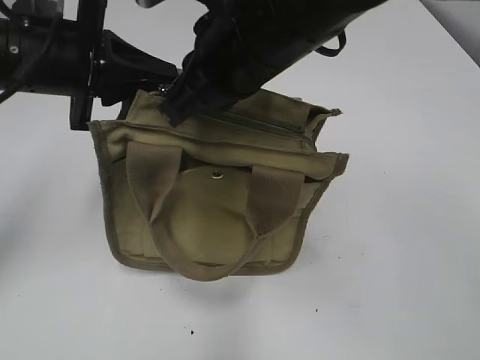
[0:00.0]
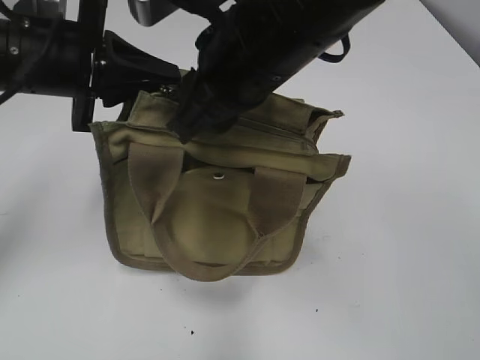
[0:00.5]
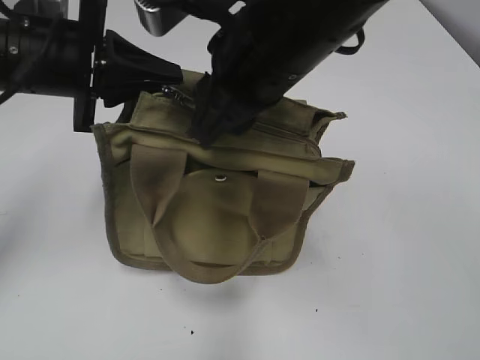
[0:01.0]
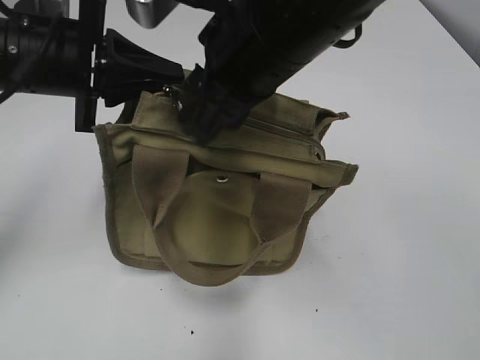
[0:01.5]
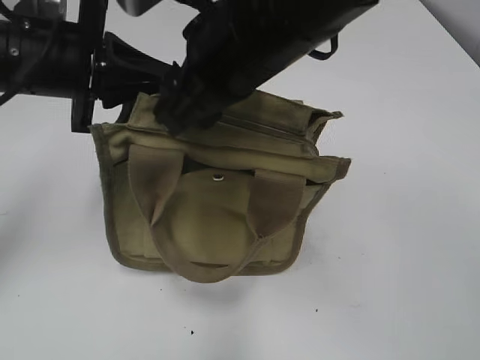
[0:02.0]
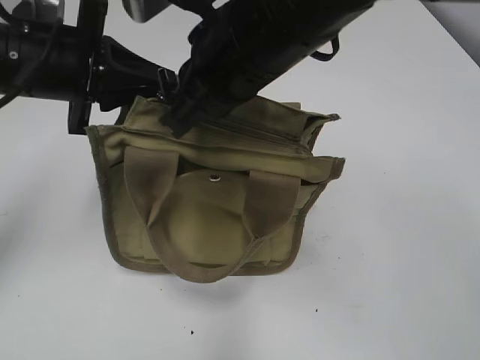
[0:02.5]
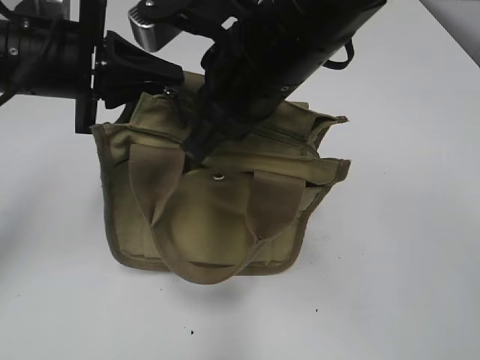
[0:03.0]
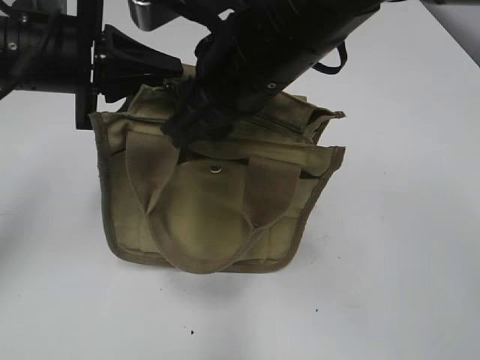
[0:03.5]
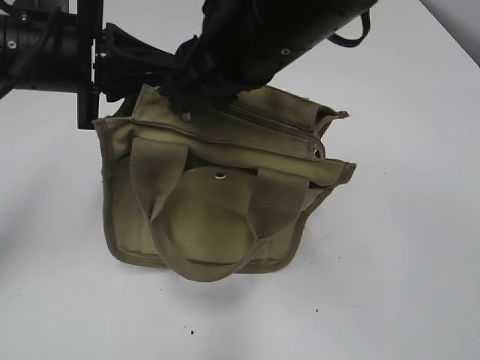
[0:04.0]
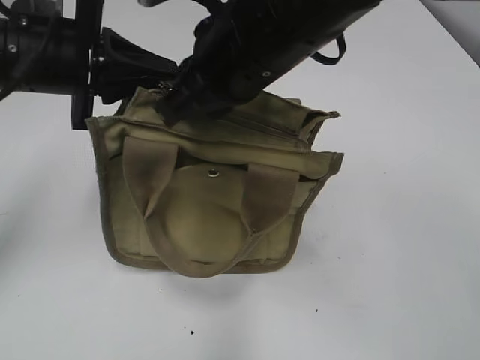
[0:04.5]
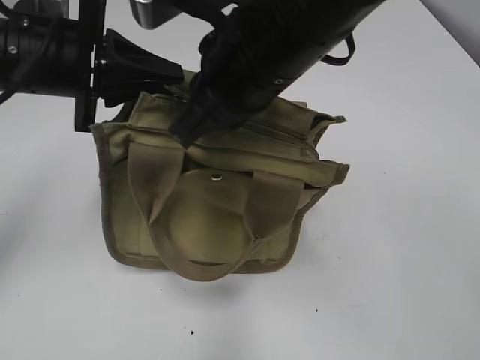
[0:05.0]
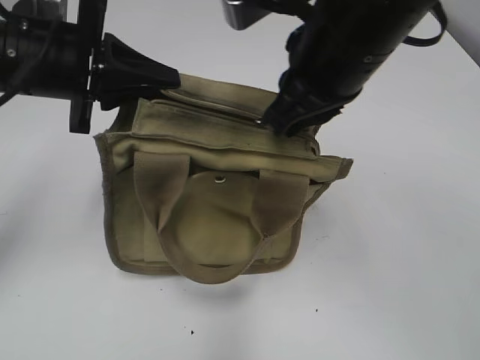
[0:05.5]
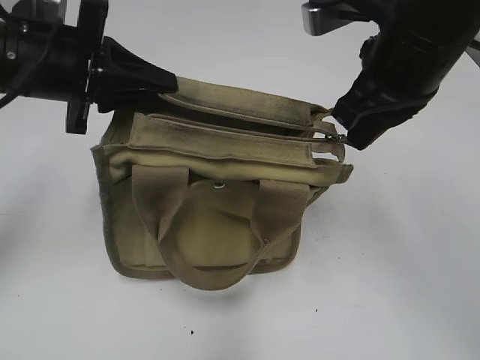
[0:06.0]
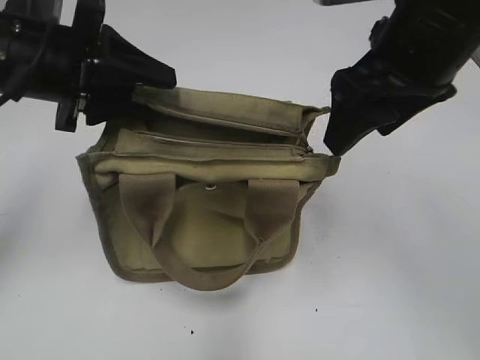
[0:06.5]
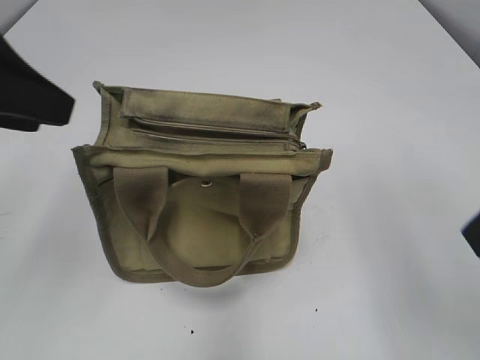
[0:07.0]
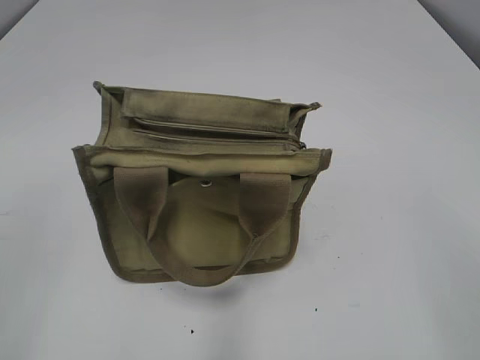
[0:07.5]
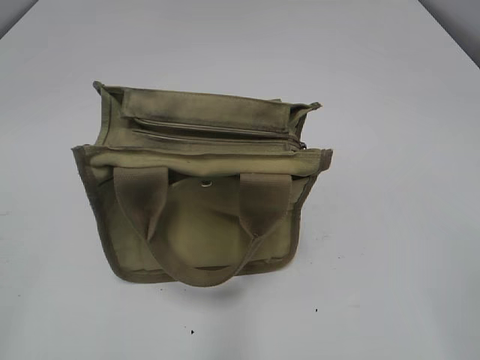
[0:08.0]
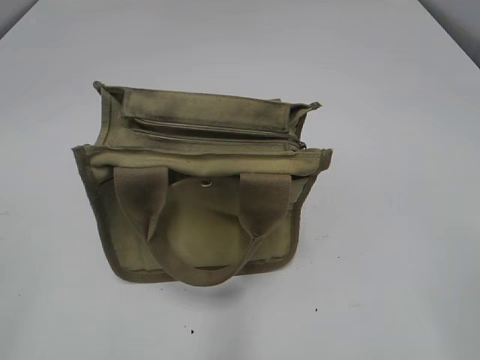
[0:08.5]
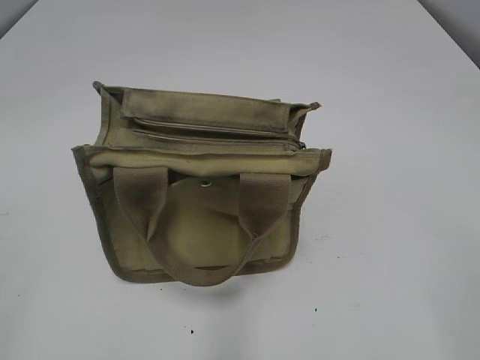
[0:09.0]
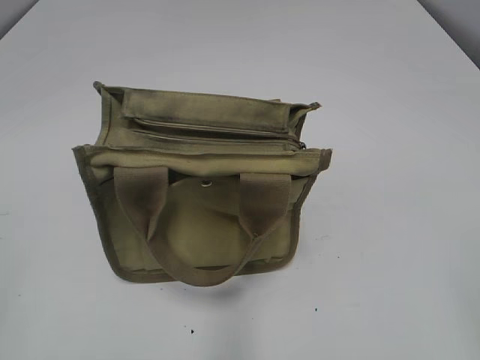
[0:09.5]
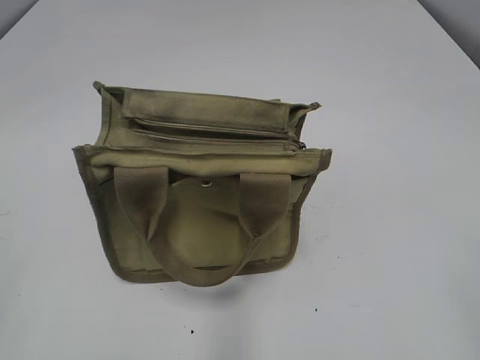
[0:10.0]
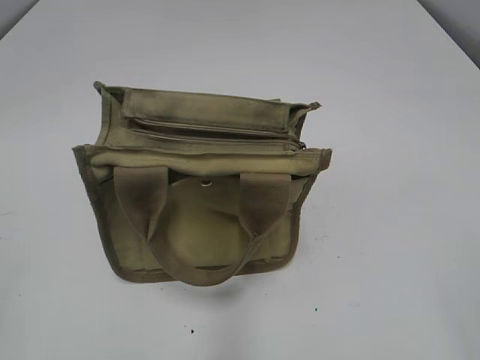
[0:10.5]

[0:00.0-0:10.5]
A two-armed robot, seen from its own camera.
Step, 0:00.0 to 0:06.0: Pull open the zipper with your right hand.
0:00.0 to 0:02.0: The right gripper opens up.
0:02.0 to 0:04.0: The right gripper closes and opens again.
0:04.0 to 0:06.5: The left gripper opens up, while the right gripper heads to the right, covering roughly 10 cm, and opens its fingers.
0:06.5 to 0:08.5: The left gripper goes about 30 cm backward and to the left; the right gripper is displaced backward and to the right by about 30 cm.

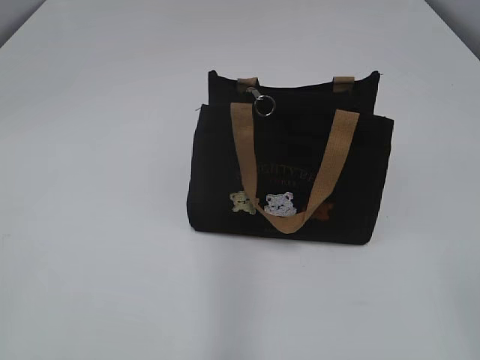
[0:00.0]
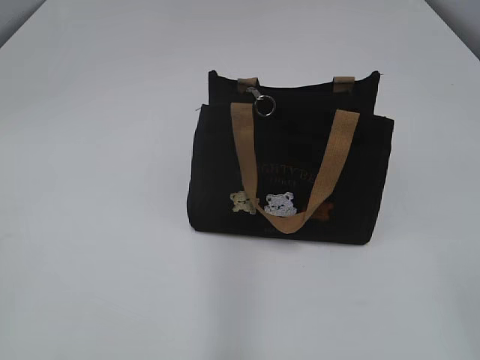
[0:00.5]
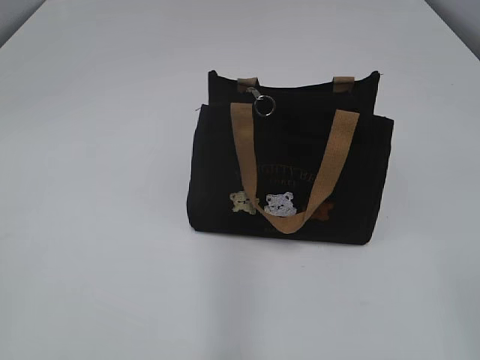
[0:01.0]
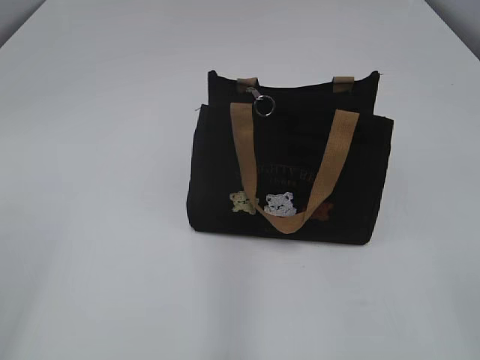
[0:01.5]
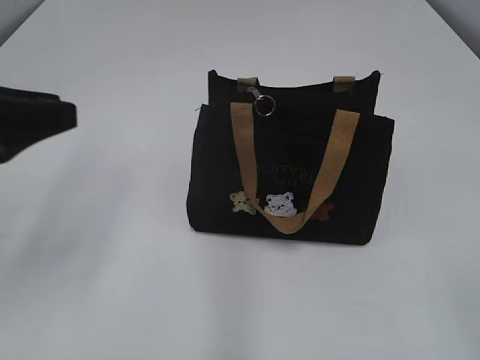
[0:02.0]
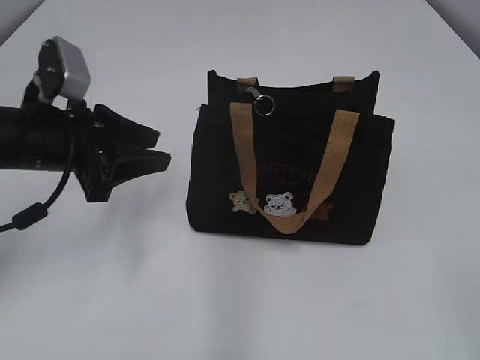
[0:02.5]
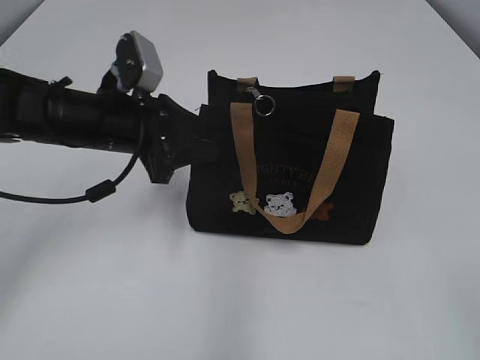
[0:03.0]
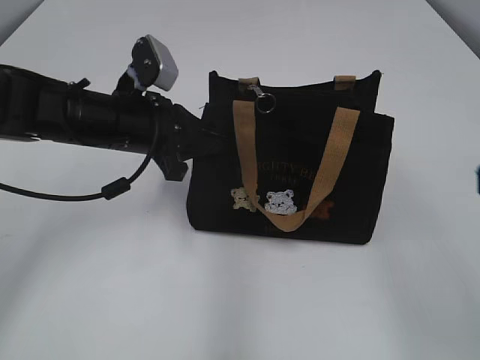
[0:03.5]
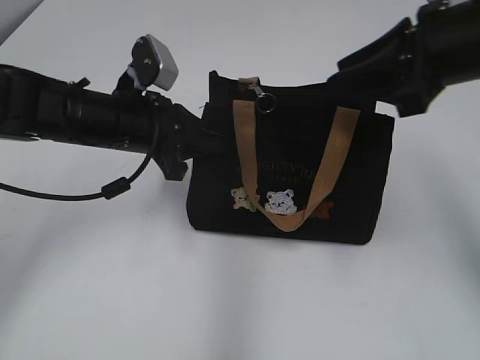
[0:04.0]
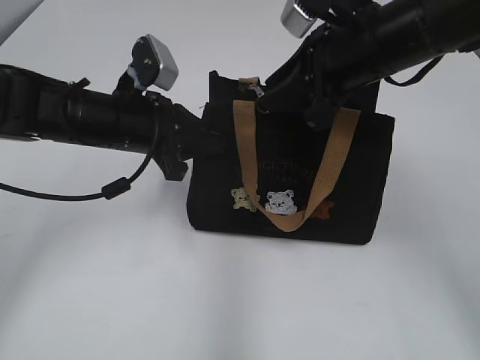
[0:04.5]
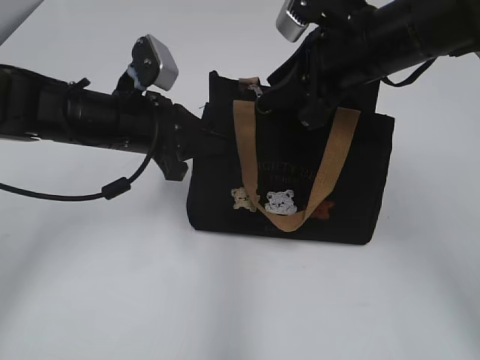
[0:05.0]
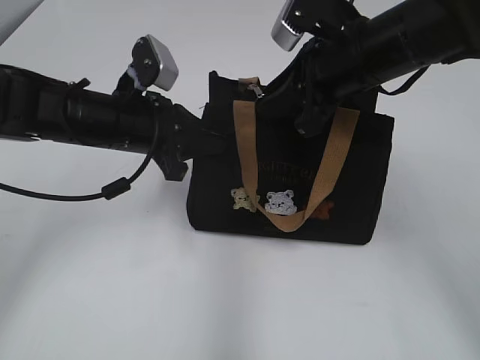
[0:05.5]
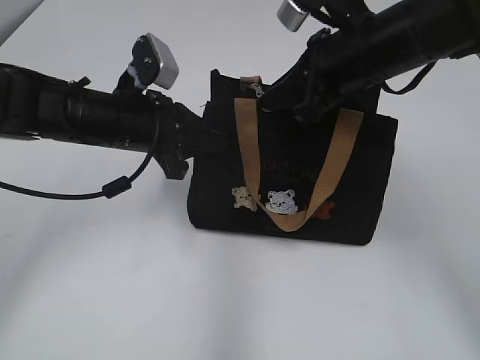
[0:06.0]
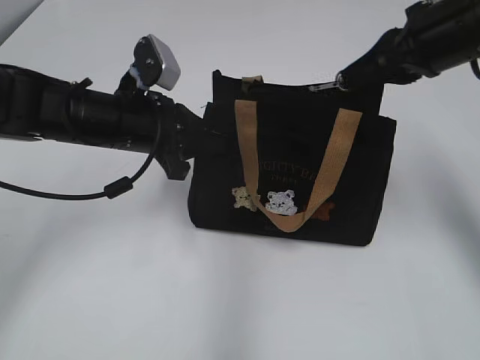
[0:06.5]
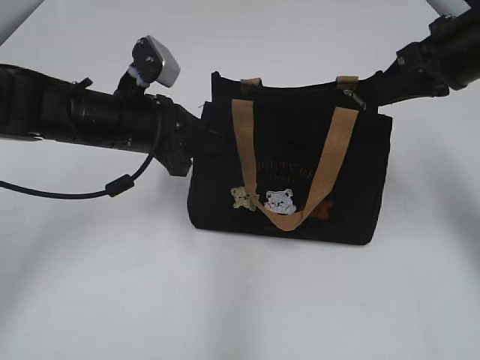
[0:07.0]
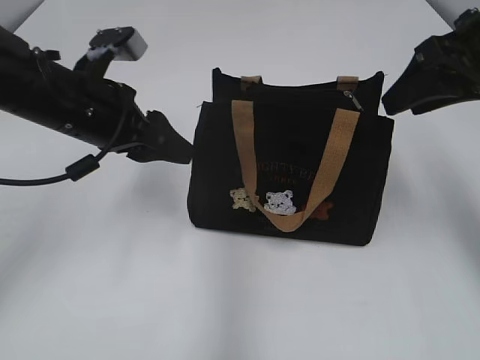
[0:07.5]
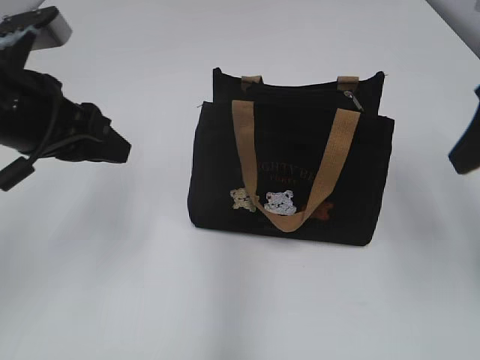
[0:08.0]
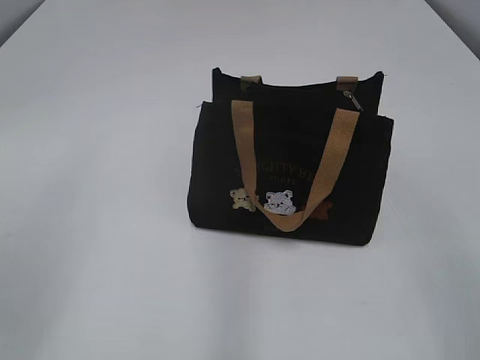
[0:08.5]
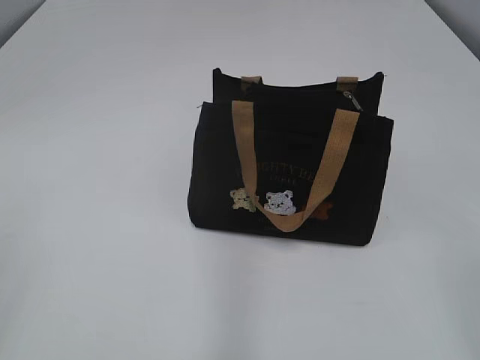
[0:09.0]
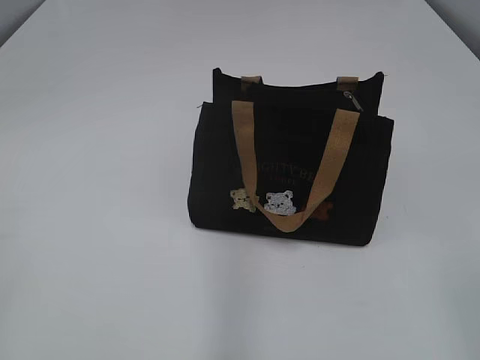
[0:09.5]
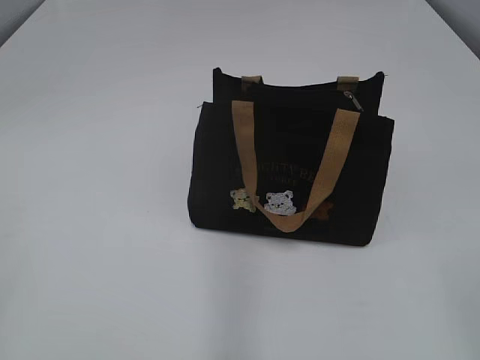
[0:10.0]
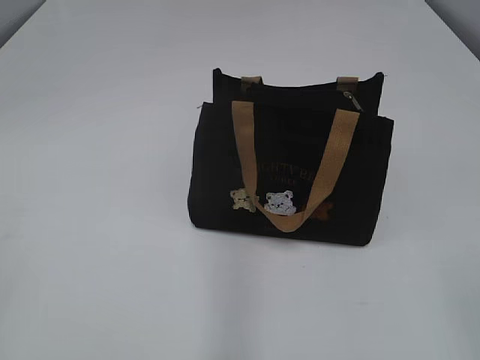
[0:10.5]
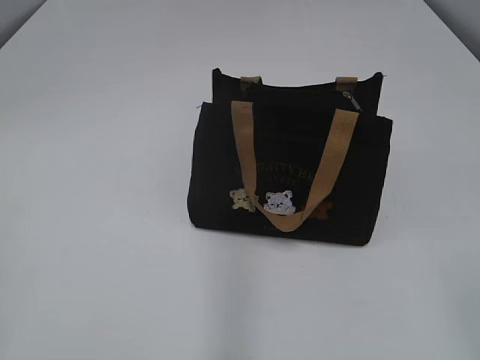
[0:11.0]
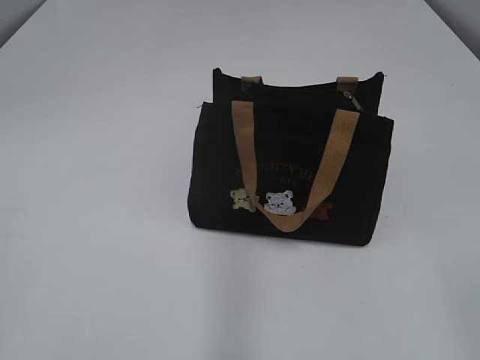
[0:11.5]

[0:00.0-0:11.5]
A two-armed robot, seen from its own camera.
Step, 0:00.0 to 0:07.0: Pull open the zipper with your right hand.
0:02.0 to 0:04.0: The left gripper moves forward, to the right and downward, approximately 20 cm, and closes its fingers. Meanwhile the right gripper heads forward, covering some 30 cm.
0:04.0 to 0:06.0: The right gripper travels to the left and forward by approximately 10 cm, and closes up.
0:06.0 to 0:07.5: The right gripper heads to the right, covering approximately 10 cm, and opens up, while the left gripper ends up about 5 cm from where it was, and opens up.
0:07.5 to 0:09.5: The left gripper moves backward and to the left, about 35 cm; the right gripper goes some 30 cm backward.

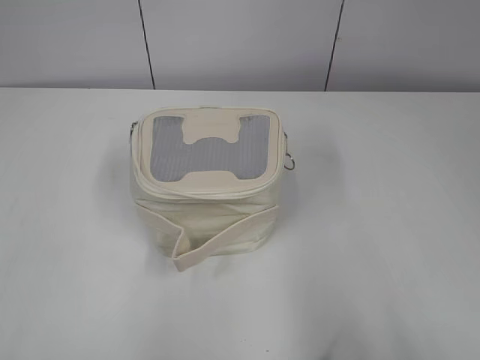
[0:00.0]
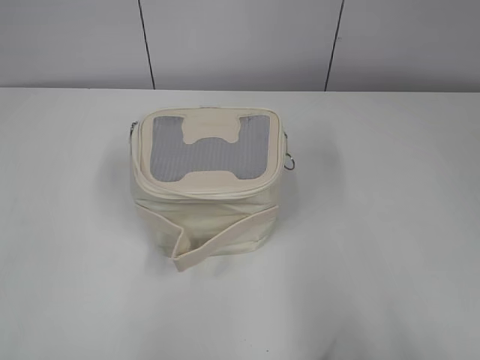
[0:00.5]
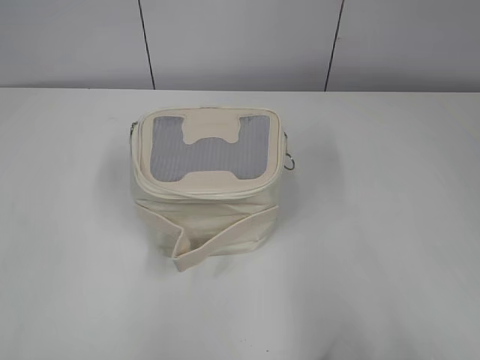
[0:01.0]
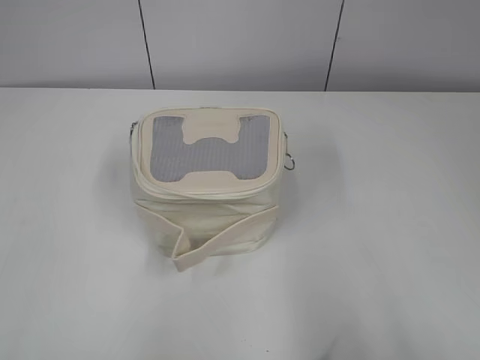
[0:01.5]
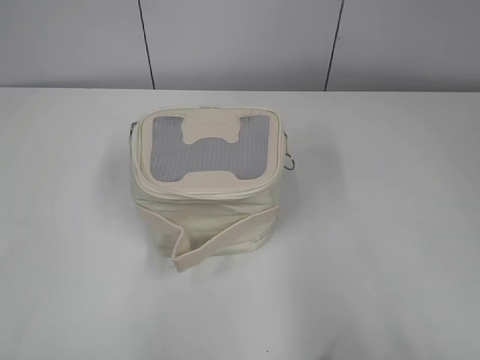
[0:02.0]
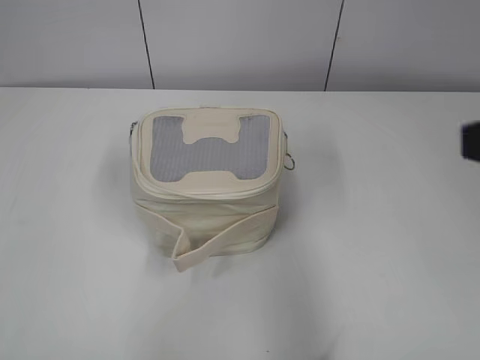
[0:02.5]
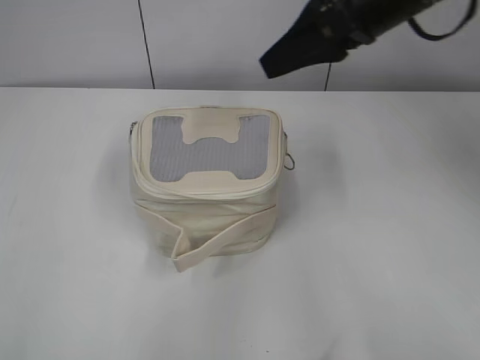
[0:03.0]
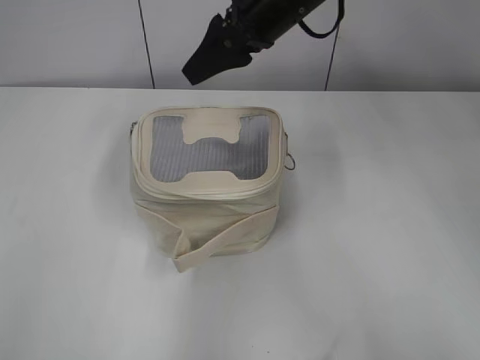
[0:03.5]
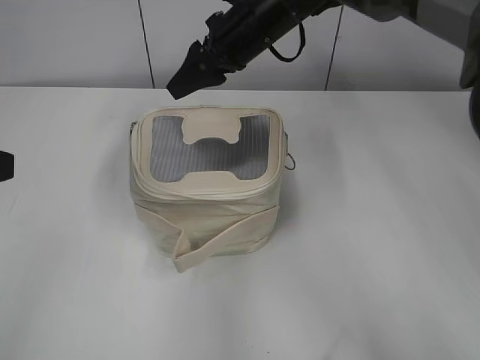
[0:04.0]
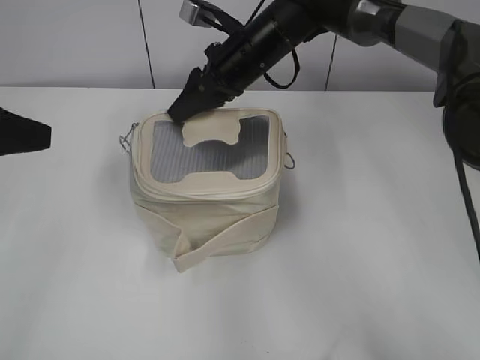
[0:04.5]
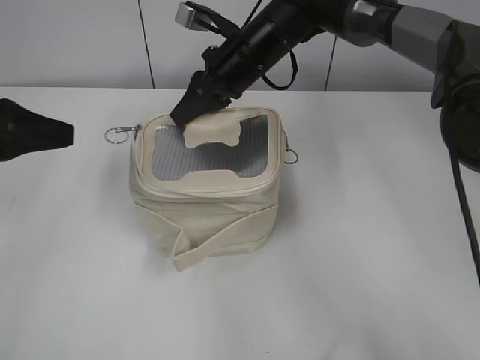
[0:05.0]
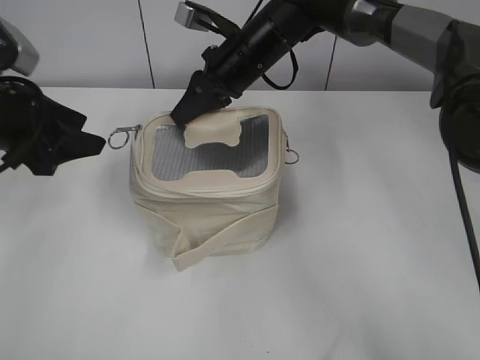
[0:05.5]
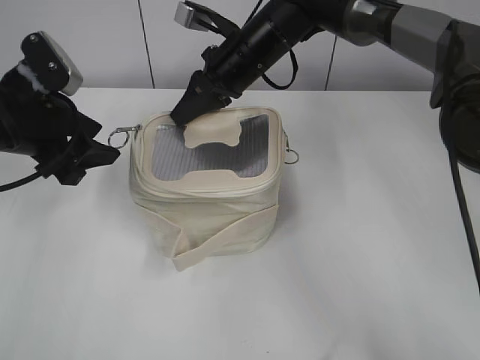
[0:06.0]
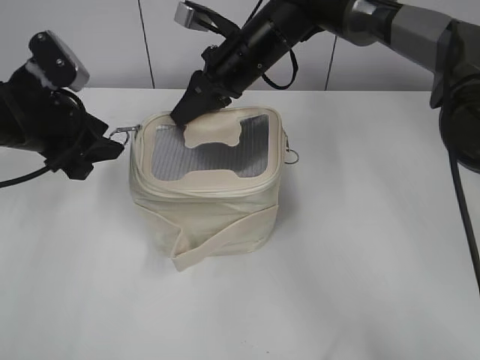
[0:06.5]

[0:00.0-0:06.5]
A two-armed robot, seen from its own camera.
0:02.0 to 0:04.5: The left gripper moves forward, approximately 20 cm; the right gripper goes about 50 cm forward and to the left.
0:04.5 to 0:06.5: The right gripper closes, while the left gripper travels forward and downward by some 15 cm.
